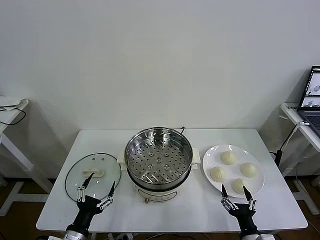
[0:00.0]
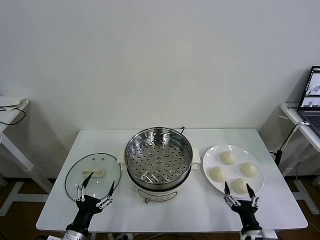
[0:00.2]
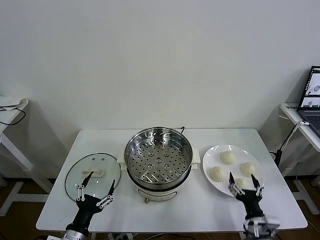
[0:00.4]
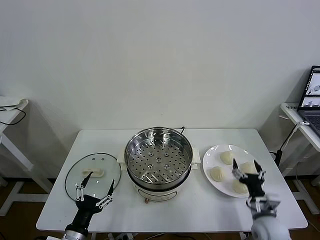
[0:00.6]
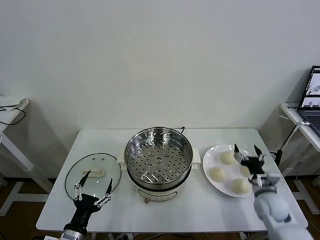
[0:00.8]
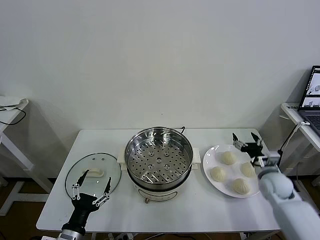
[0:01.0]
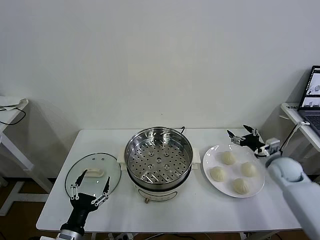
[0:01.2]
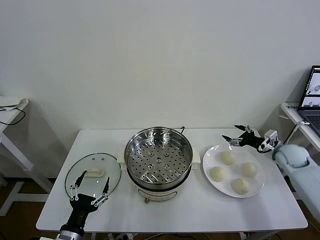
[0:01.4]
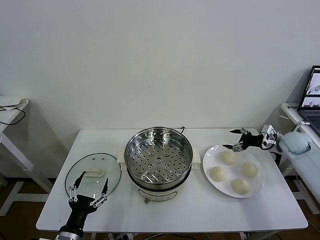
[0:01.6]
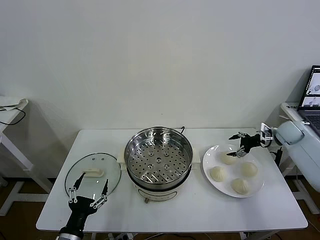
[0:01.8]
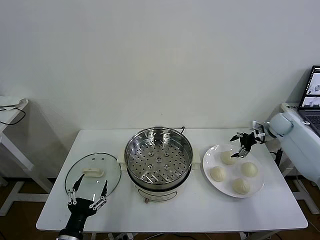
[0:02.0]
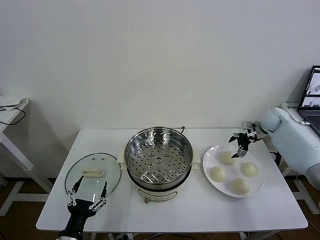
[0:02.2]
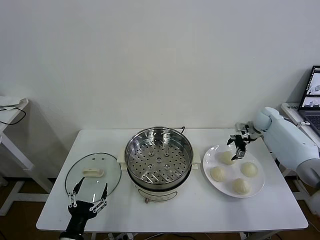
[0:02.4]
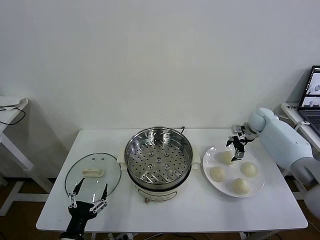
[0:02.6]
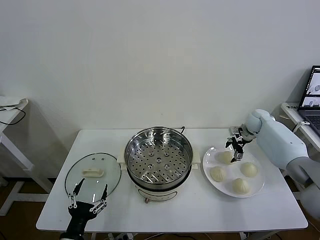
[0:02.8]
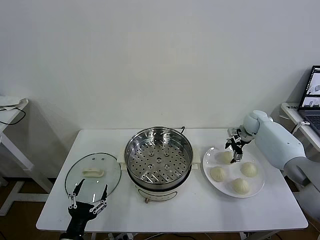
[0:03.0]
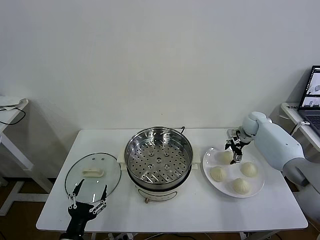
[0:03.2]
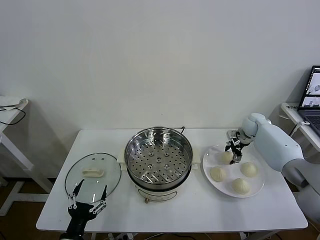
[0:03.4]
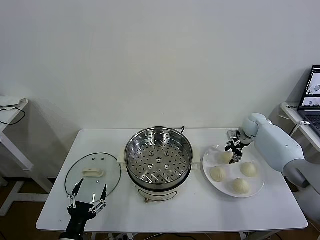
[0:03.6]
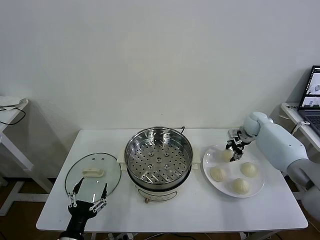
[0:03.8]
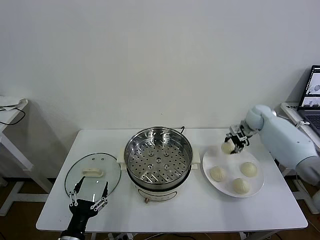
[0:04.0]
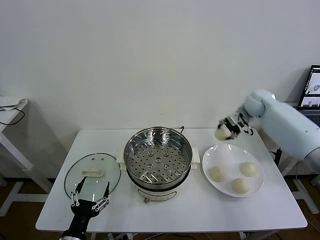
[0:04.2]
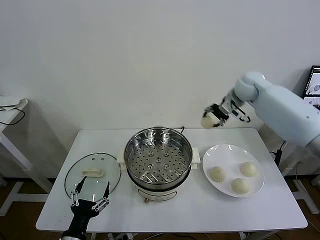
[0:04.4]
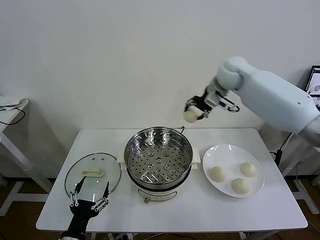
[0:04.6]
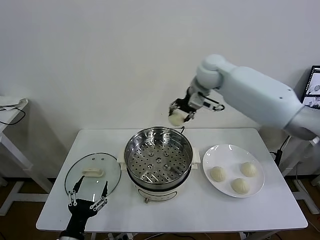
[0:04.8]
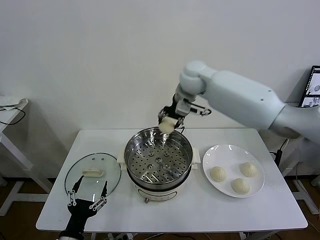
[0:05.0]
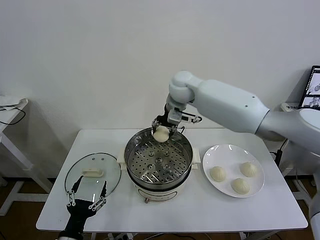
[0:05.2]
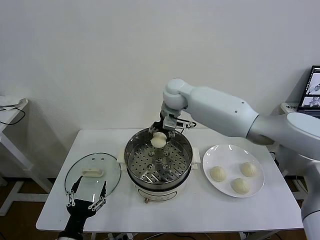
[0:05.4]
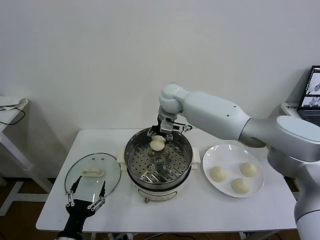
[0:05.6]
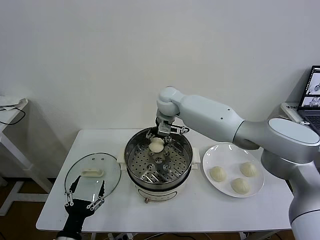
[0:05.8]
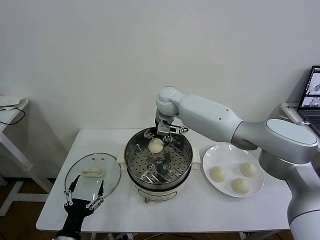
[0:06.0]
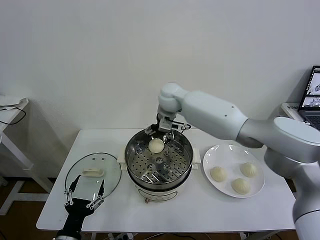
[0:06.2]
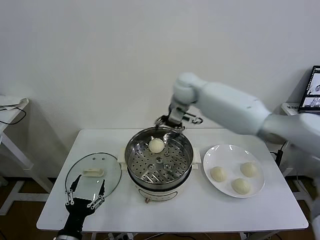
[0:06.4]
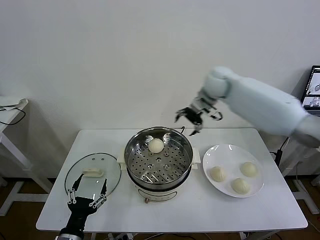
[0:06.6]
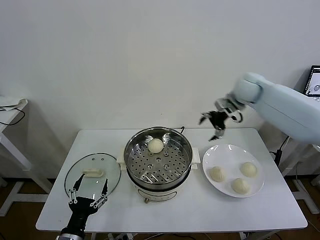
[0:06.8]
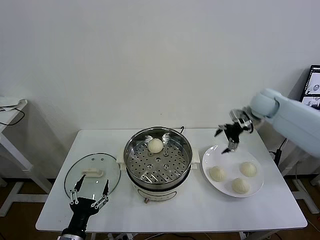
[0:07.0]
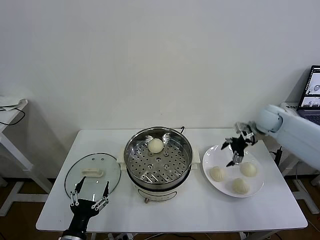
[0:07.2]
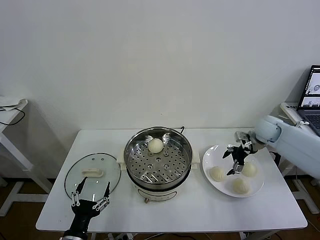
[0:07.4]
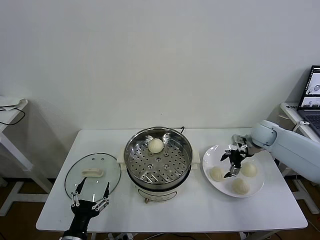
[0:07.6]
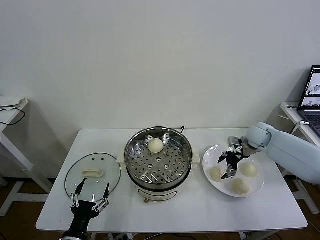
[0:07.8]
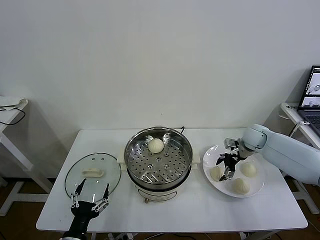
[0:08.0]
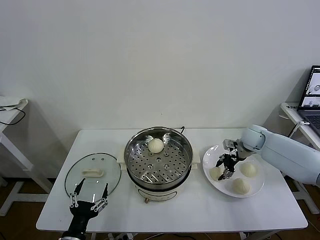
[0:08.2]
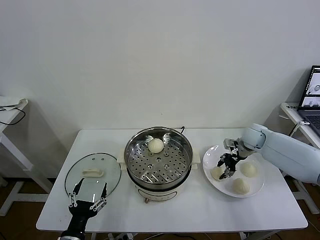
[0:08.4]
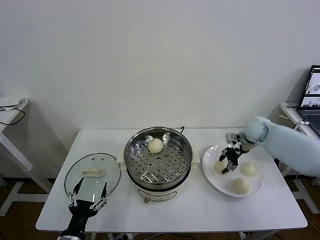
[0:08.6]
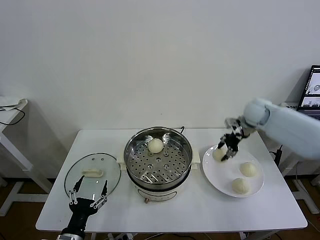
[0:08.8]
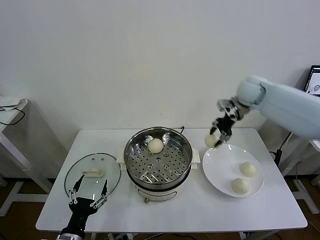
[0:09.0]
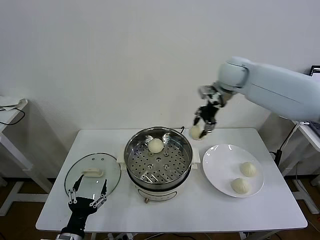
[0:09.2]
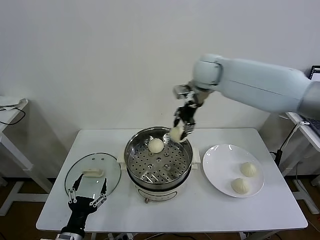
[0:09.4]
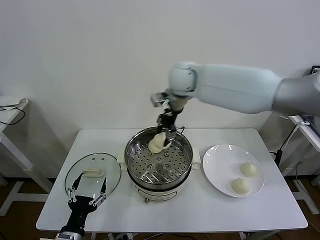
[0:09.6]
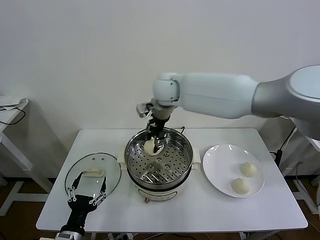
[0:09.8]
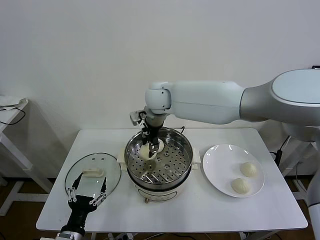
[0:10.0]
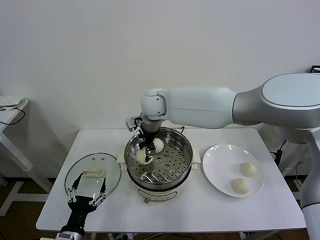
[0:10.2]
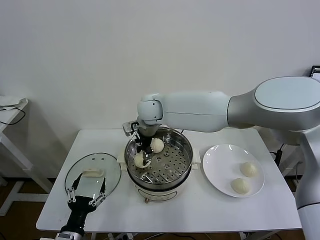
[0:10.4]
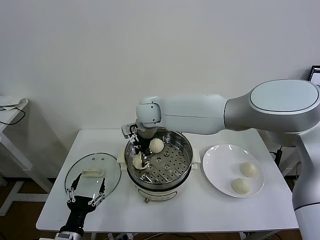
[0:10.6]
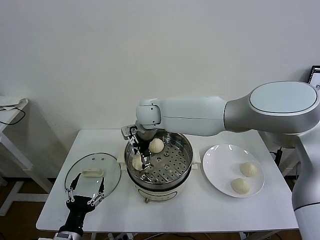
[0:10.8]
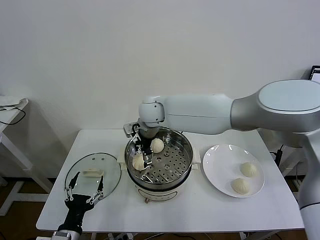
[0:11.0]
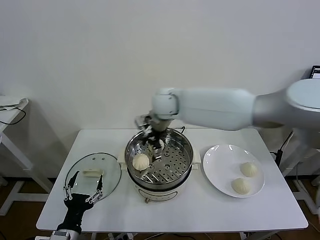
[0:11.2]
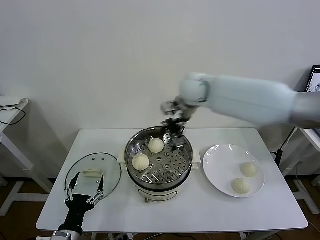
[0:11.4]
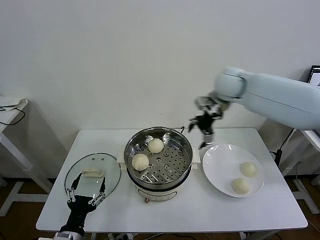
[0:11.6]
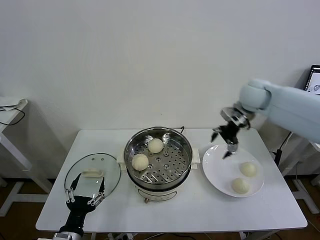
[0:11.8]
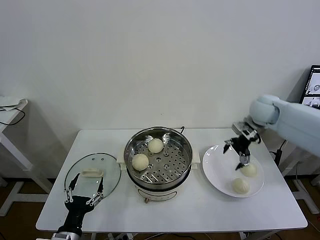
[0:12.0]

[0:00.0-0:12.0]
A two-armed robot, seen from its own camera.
Task of the whole recording: take steamed baozi put them in steamer then cover it.
Step, 0:00.0 to 0:03.6: Grasp the baozi in the plate with right gripper.
Step, 0:03.8 to 0:06.0: Place the baozi on the steamer with right gripper.
Step, 0:06.4 to 0:08.2: Grasp the baozi in the plate with right gripper.
Step, 0:08.4 to 0:10.8: Place the baozi on the steamer with right gripper.
0:01.6 to 0:03.0: The right gripper shifts some 15 cm to the left and forward.
0:03.0 to 0:04.4: The right gripper heads upward and to the left, covering some 25 cm, and closes.
0:04.4 to 0:06.0: The right gripper is displaced to the left by about 25 cm, and opens.
0:06.0 to 0:07.6: The right gripper goes some 35 cm to the right.
0:07.6 to 0:09.0: The right gripper shifts roughly 20 cm upward and to the left, and closes up.
0:09.0 to 0:10.4: The right gripper is displaced to the left by approximately 30 cm.
0:10.4 to 0:12.0: The right gripper is displaced to the right by some 40 cm, and opens up.

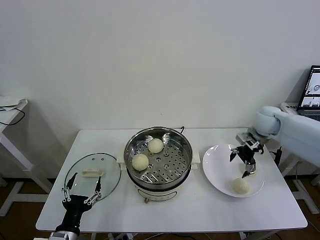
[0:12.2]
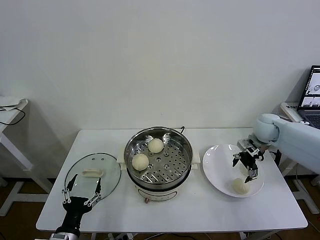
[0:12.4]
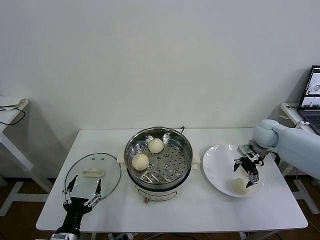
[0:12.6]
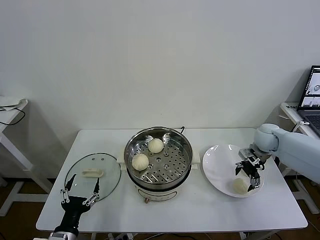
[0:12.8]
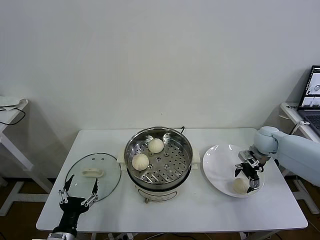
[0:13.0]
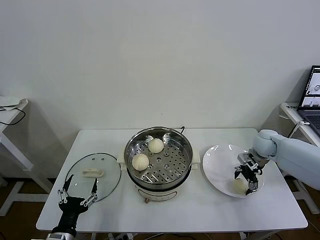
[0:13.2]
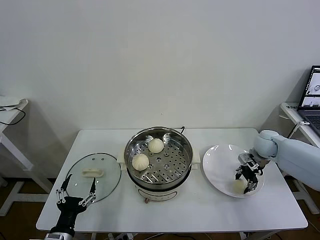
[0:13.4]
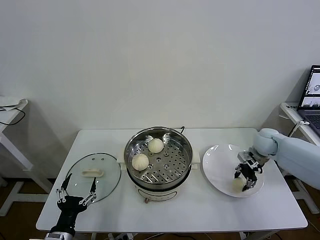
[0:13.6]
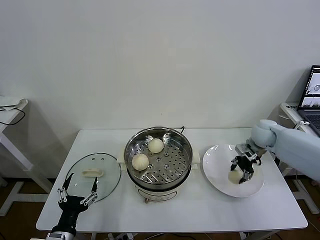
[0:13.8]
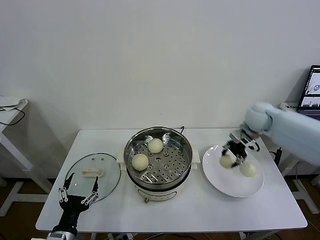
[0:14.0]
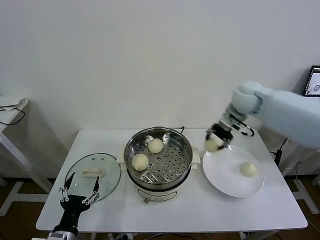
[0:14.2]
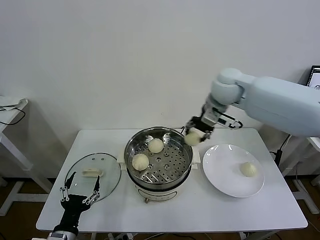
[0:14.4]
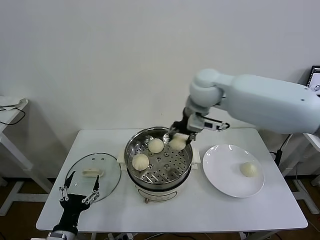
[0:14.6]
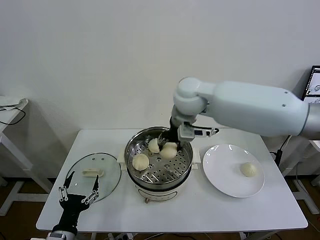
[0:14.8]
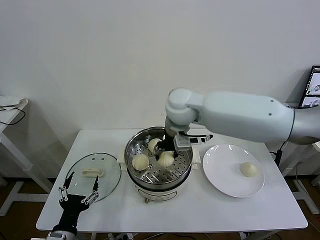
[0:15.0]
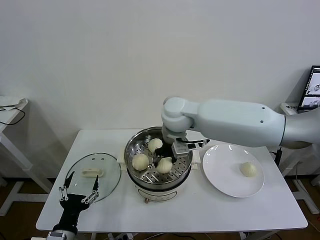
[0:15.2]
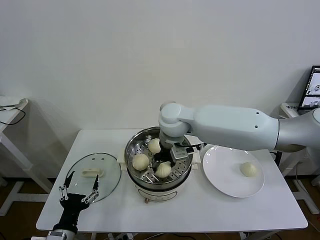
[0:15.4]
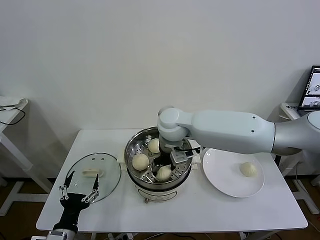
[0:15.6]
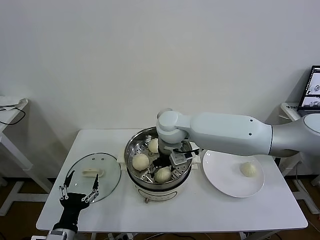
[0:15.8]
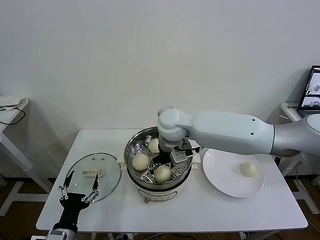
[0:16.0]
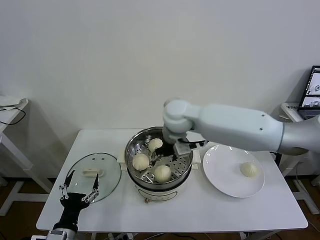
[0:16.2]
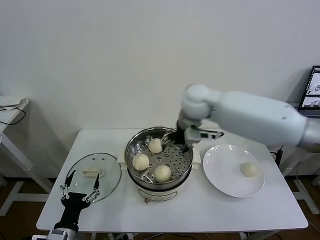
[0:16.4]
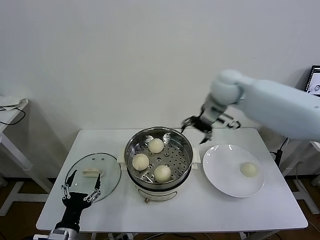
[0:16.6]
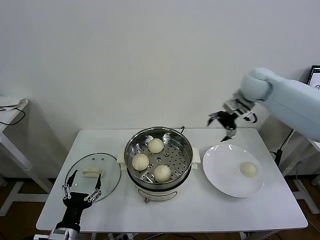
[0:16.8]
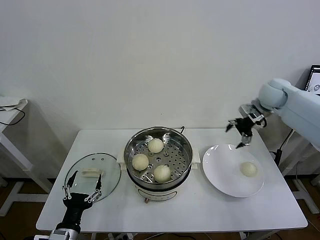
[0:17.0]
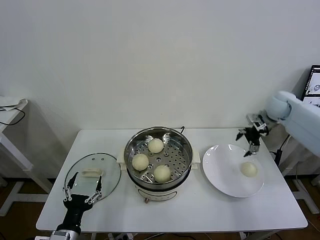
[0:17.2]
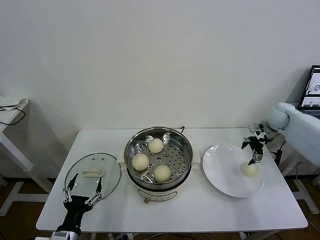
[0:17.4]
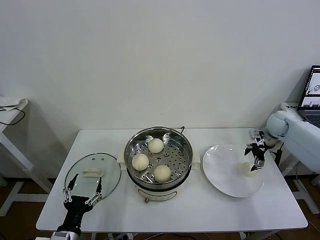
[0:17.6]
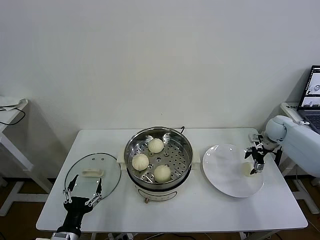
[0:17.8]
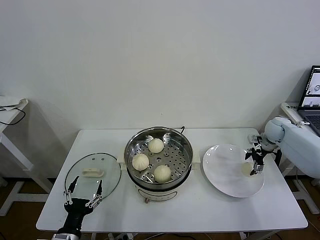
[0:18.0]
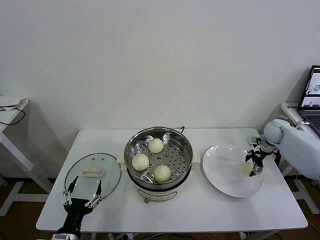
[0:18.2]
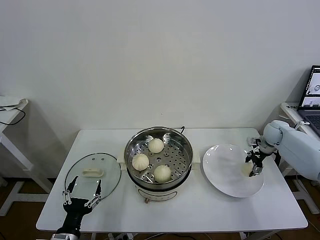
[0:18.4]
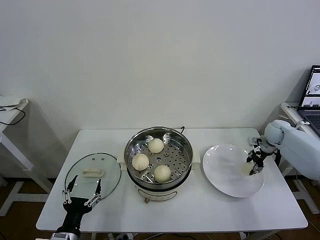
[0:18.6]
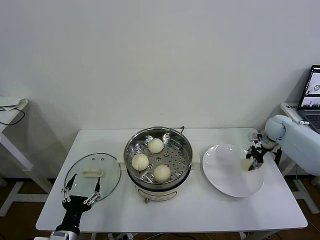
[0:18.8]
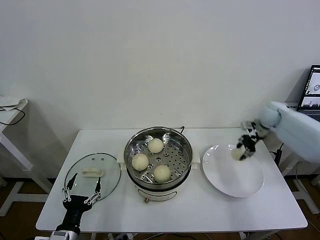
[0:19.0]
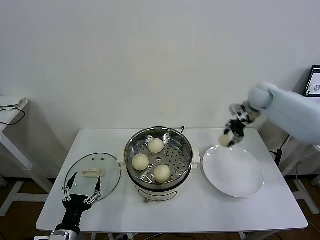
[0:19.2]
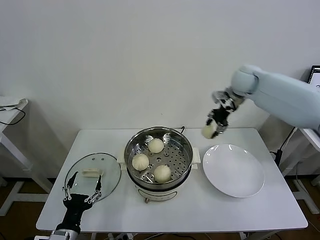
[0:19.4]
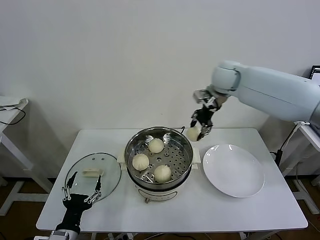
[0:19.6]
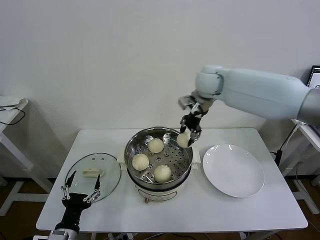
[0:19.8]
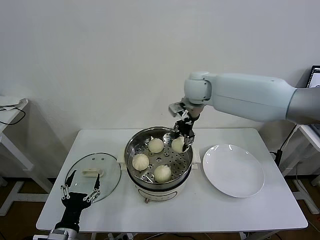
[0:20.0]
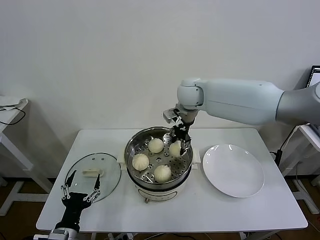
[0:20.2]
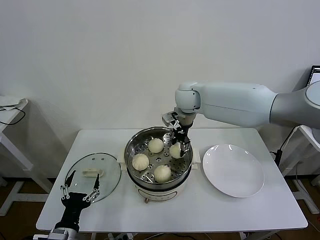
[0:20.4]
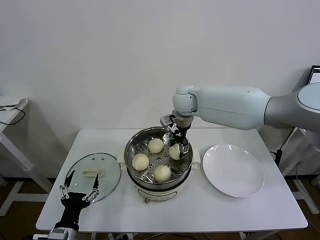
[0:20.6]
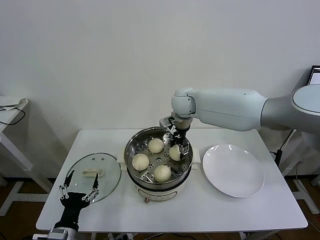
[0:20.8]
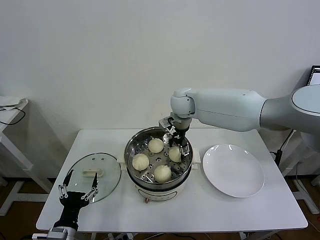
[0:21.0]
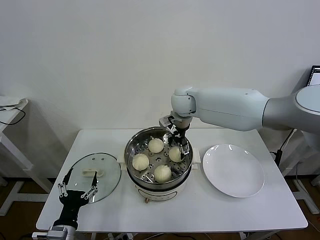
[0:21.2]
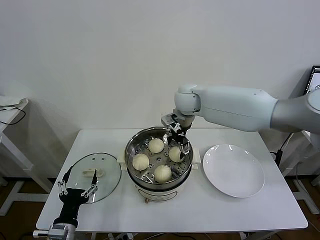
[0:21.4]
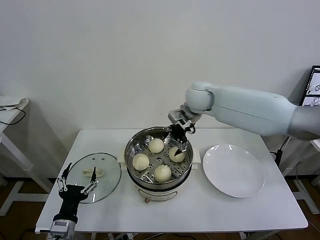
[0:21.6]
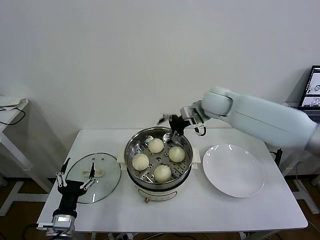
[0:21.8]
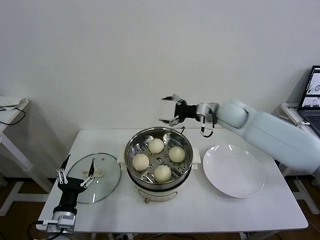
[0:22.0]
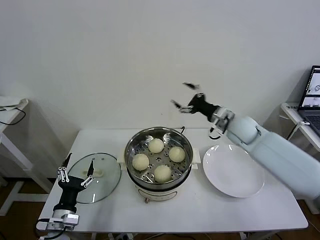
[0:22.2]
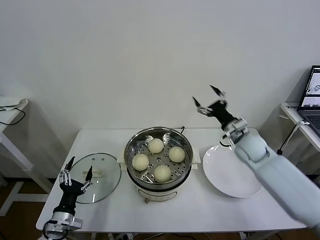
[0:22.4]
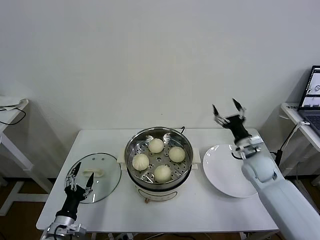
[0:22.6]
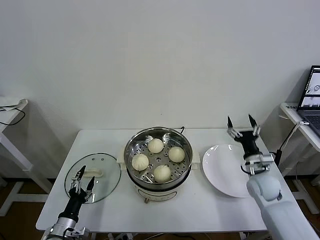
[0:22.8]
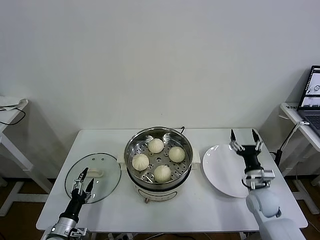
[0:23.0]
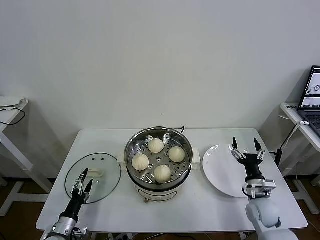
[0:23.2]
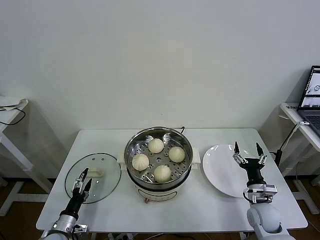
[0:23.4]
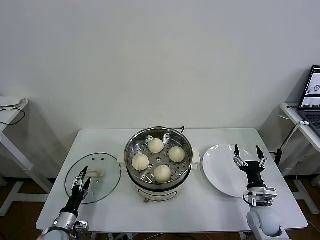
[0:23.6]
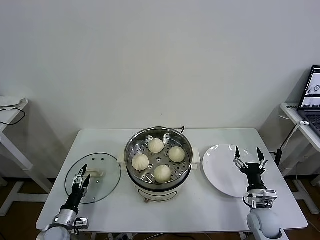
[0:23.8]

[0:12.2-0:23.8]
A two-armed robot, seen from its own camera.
Task of the whole recording: take steamed baozi put them in steamer then cover it.
Step, 0:12.2 to 0:13.6: Grasp the baozi in the plate with right gripper.
Step, 0:13.8 to 0:15.8: Place the baozi on the steamer with right gripper.
Step, 0:16.2 to 0:18.6: Grasp the baozi in the plate with right gripper.
Step, 0:18.8 to 0:21.2: Place the baozi on the steamer with right gripper.
0:12.2 to 0:13.6: The right gripper travels downward by roughly 5 cm, and closes up.
0:13.6 to 0:15.0: The right gripper moves to the left and upward, some 40 cm.
0:15.0 to 0:16.6: The right gripper travels to the right and forward by some 15 cm, and opens its fingers.
0:16.6 to 0:18.0: The right gripper moves to the right and downward, some 35 cm.
0:18.0 to 0:19.4: The right gripper moves upward and to the left, some 25 cm, and closes up.
0:19.4 to 0:21.0: The right gripper shifts roughly 20 cm to the left, and opens its fingers.
0:21.0 to 0:22.4: The right gripper heads to the right, downward and backward, covering roughly 30 cm; the left gripper is displaced forward by about 5 cm.
0:22.4 to 0:23.8: The left gripper shifts roughly 10 cm downward. Meanwhile the right gripper goes about 25 cm backward and downward.
